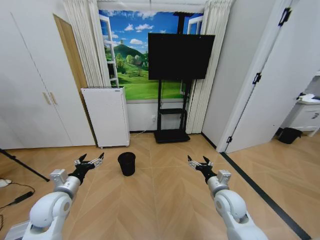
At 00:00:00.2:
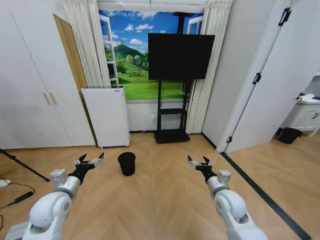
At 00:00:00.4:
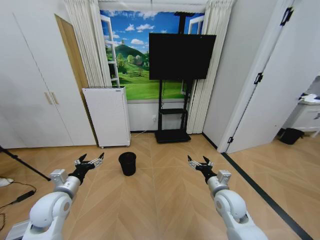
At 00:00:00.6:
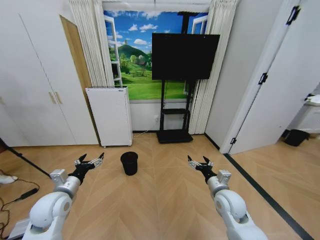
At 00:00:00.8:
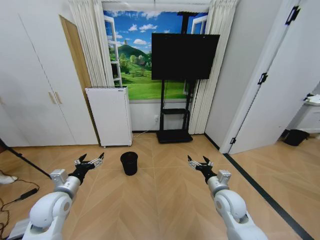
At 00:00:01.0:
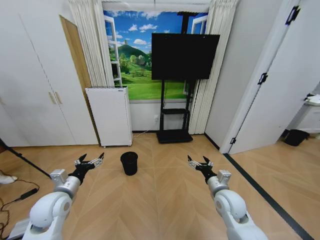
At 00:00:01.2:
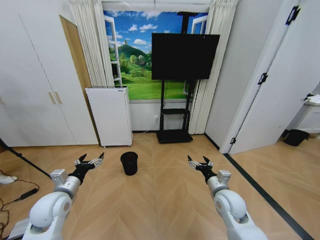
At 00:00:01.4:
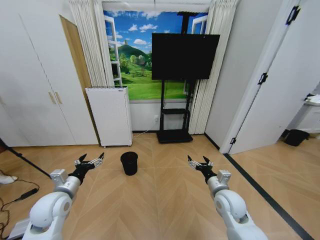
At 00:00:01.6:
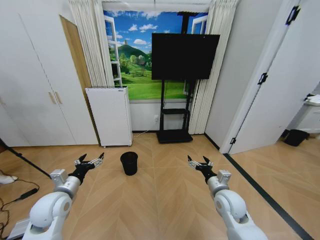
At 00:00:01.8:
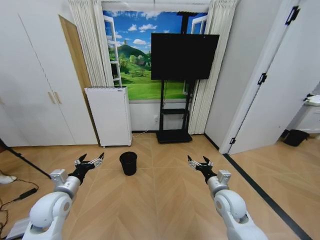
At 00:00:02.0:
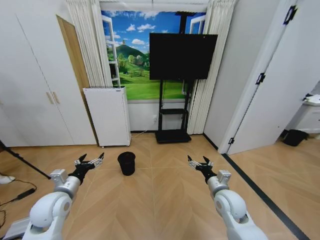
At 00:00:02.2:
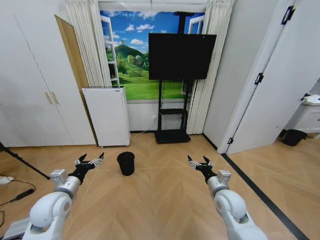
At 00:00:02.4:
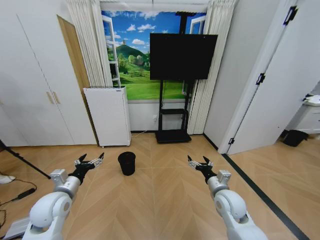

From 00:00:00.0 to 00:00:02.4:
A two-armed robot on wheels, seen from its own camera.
Task of the whole recording: Pick up the trash bin and place the garbage on the floor into it.
From 00:00:00.0 to 00:00:02.4: The two grippers keep their place.
